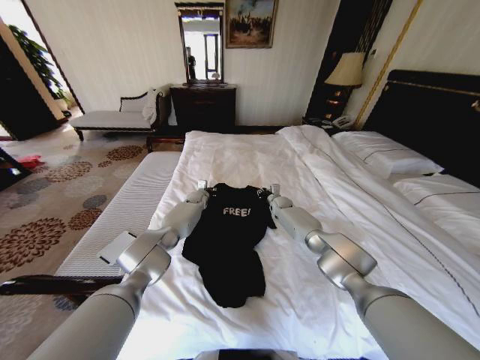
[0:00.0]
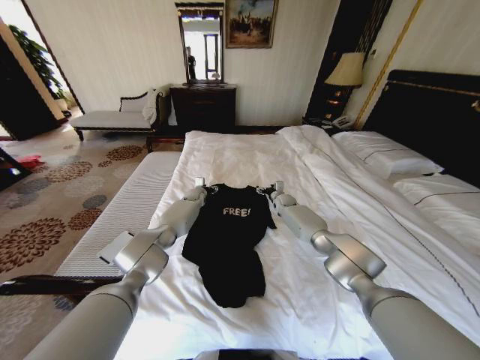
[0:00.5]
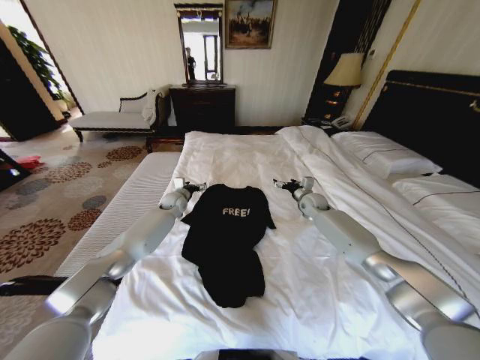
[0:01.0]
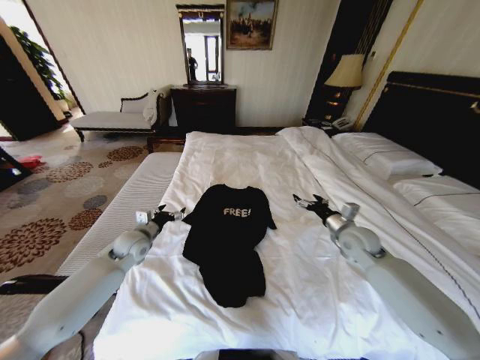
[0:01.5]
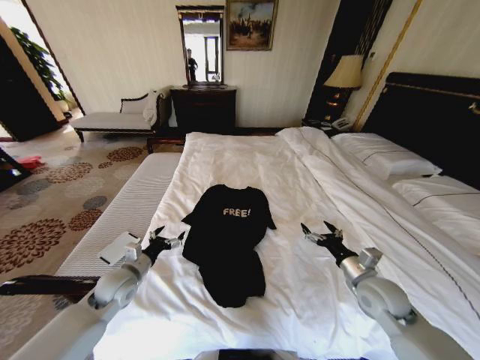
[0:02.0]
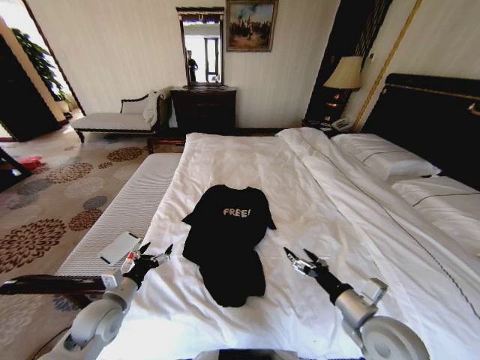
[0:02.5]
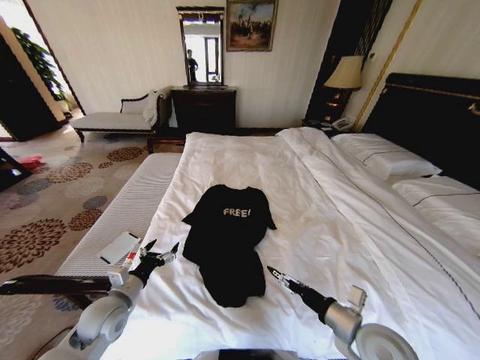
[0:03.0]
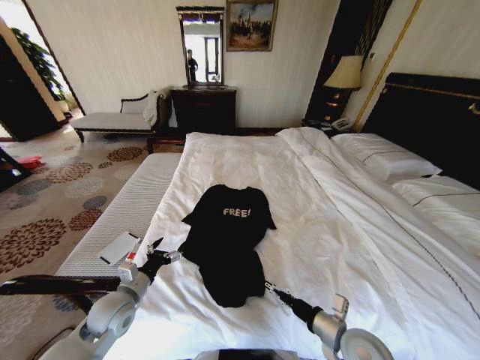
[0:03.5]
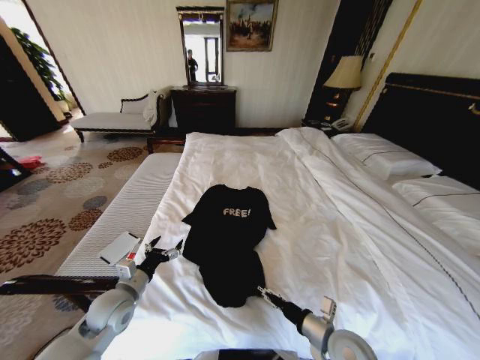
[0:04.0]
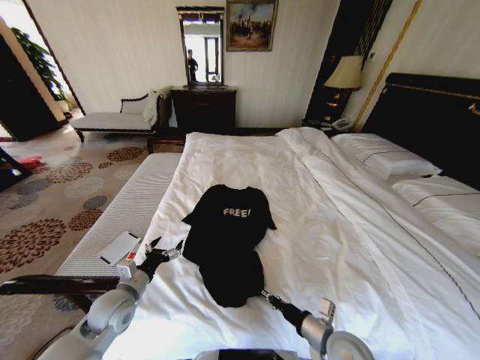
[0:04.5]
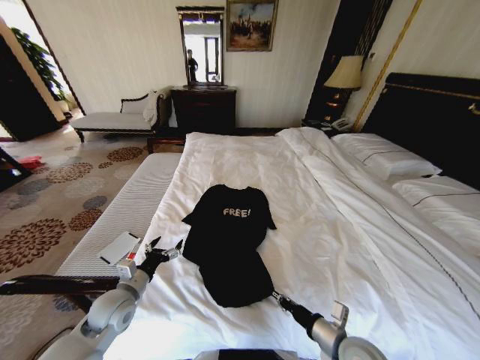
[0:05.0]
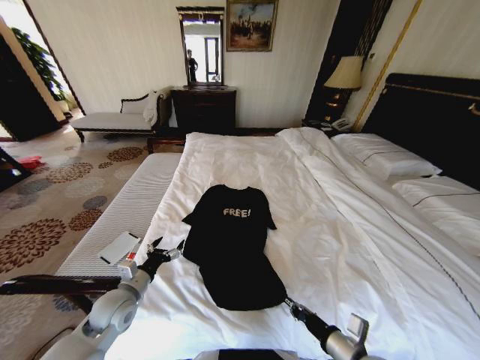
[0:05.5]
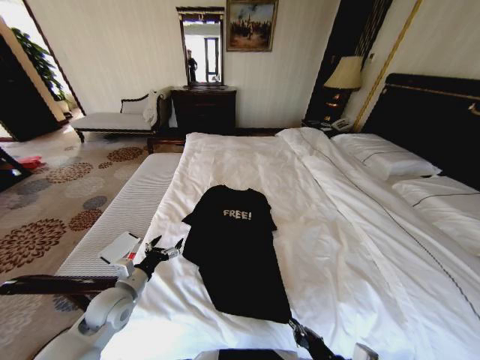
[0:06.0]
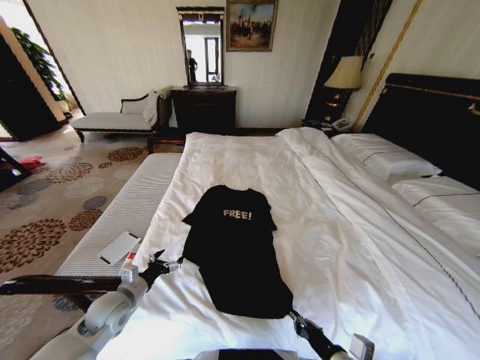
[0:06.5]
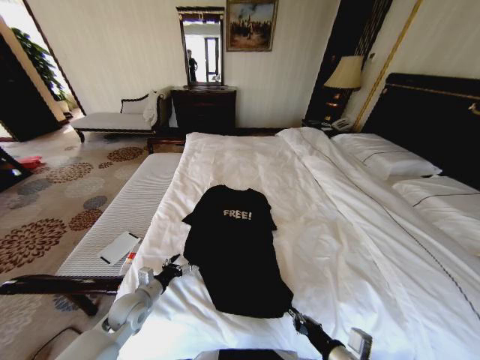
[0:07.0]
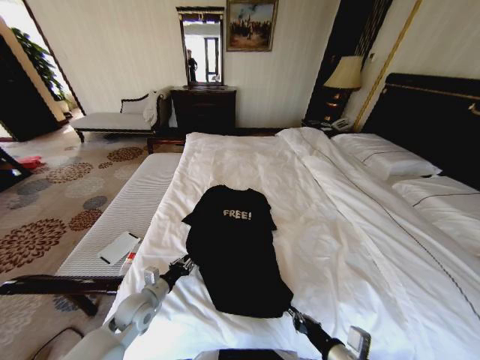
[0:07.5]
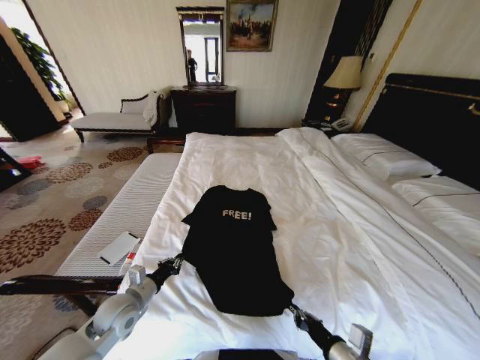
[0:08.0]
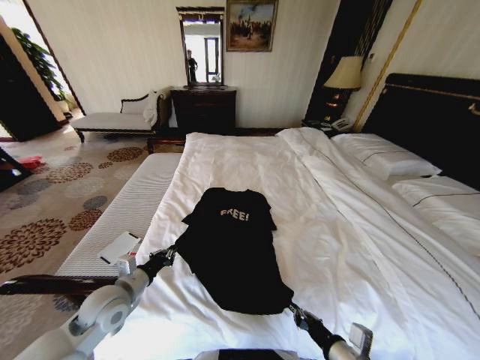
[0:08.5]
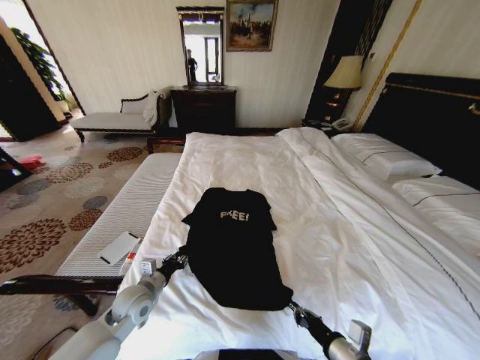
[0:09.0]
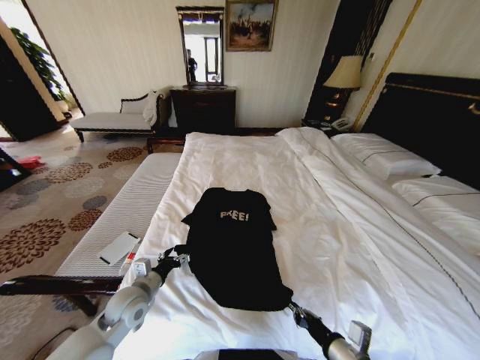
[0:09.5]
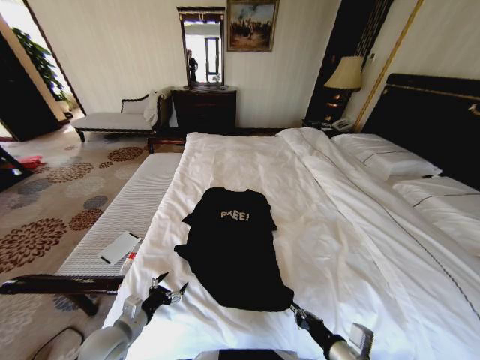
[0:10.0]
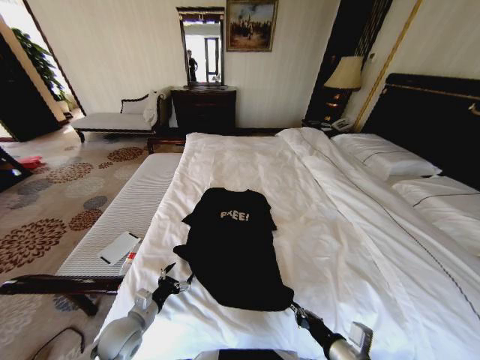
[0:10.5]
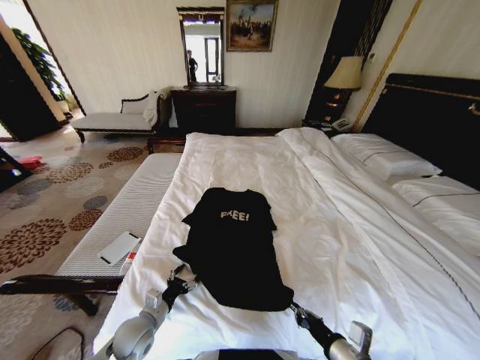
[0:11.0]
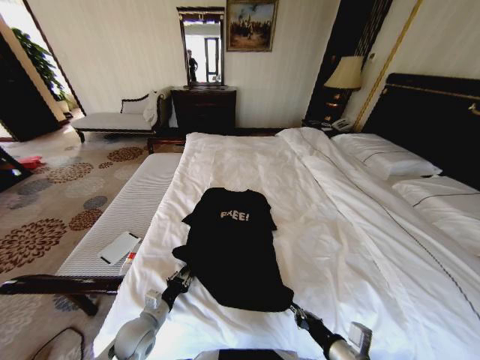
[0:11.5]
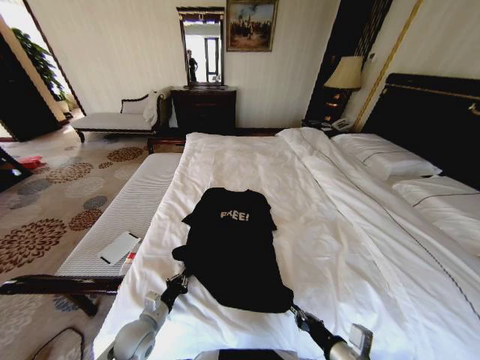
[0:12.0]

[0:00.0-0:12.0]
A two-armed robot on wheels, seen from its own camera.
Task of the whole recording: Fold the clothes on the bed.
0:00.0 to 0:02.0: The right gripper shifts about 40 cm backward, and opens up. Meanwhile the left gripper heads backward and to the left, covering approximately 40 cm, and opens its fingers.
0:02.0 to 0:04.0: The right gripper heads to the left, backward and downward, covering approximately 15 cm; the left gripper is displaced backward by about 5 cm.
0:04.0 to 0:06.0: The right gripper heads backward, covering approximately 10 cm, and closes.
0:06.0 to 0:08.0: The left gripper closes its fingers.
0:08.0 to 0:10.0: The left gripper heads backward, covering about 5 cm, and opens up.
0:10.0 to 0:12.0: The left gripper is displaced downward by approximately 5 cm, and closes.

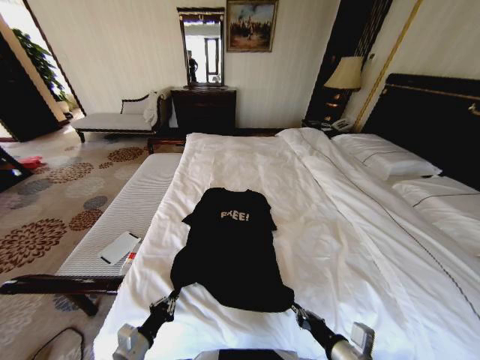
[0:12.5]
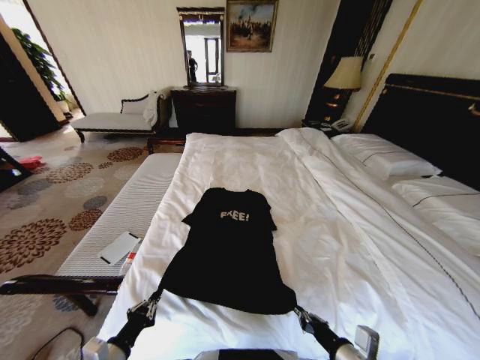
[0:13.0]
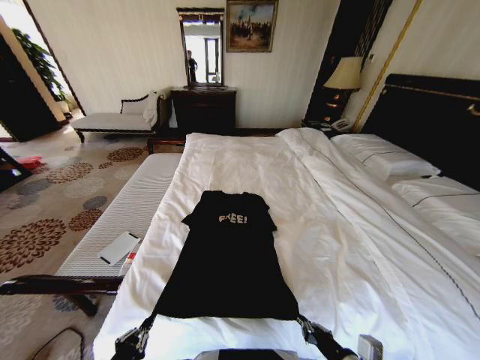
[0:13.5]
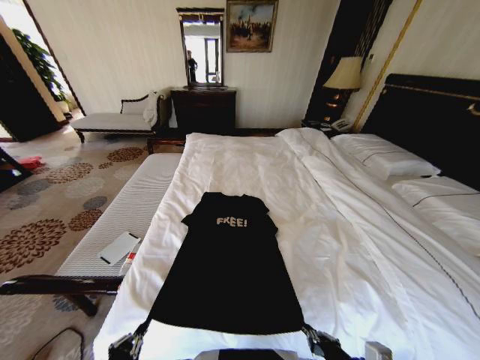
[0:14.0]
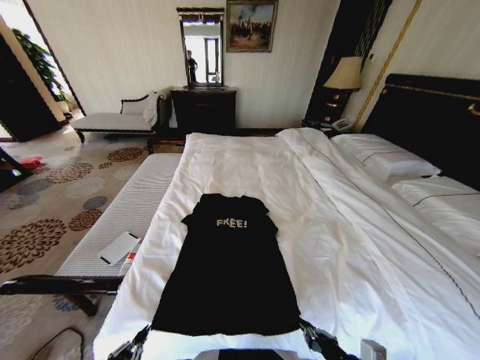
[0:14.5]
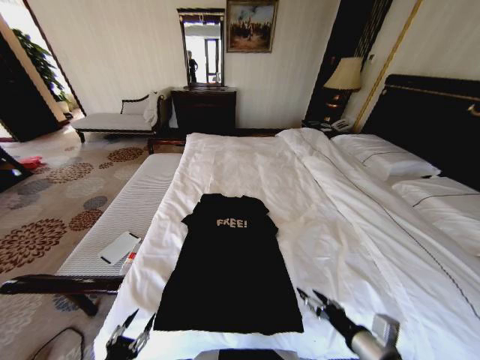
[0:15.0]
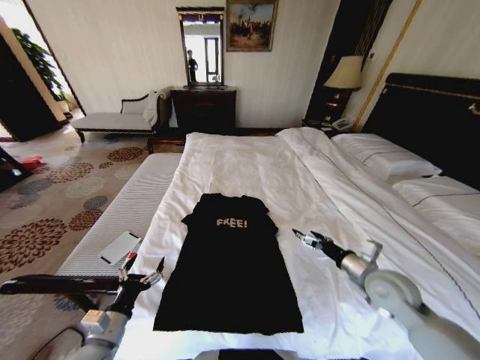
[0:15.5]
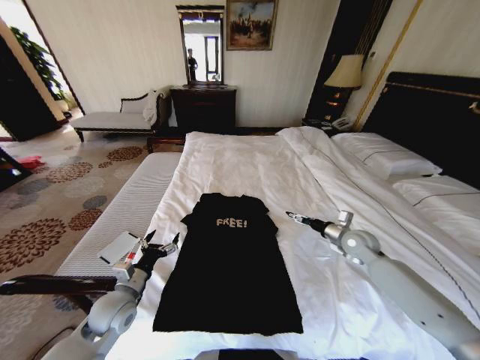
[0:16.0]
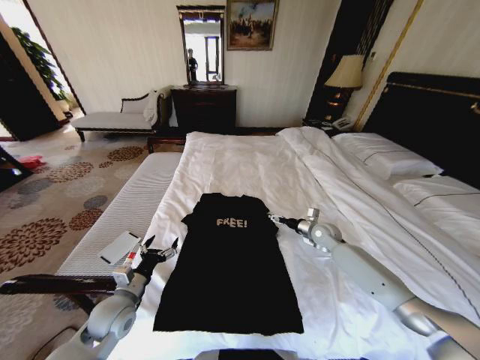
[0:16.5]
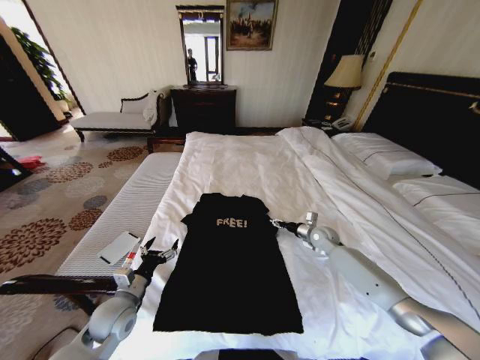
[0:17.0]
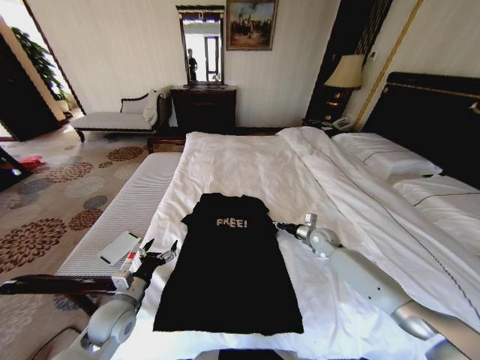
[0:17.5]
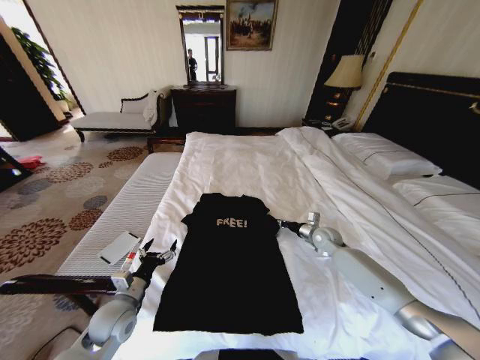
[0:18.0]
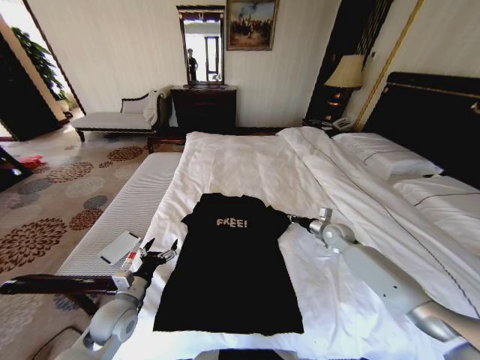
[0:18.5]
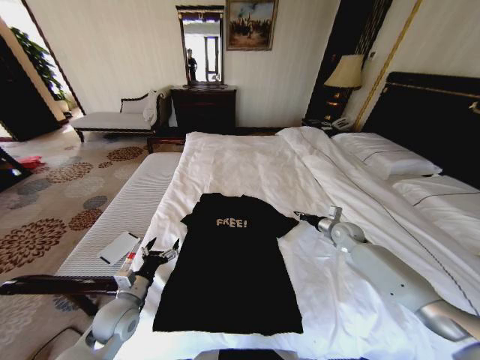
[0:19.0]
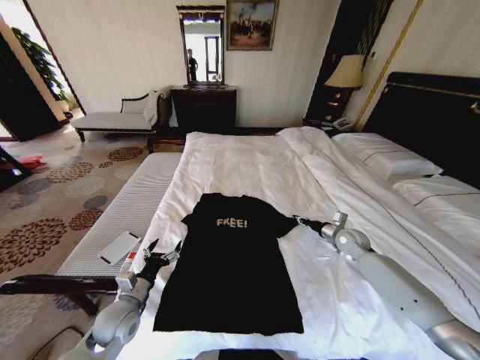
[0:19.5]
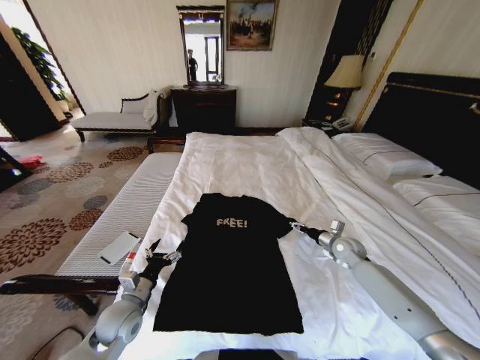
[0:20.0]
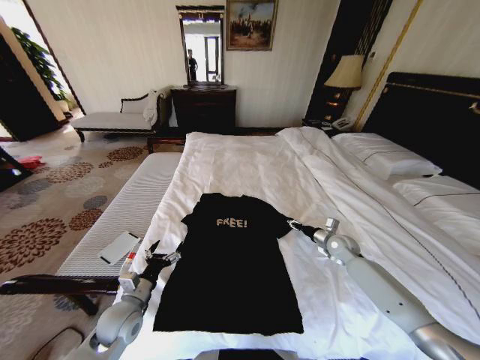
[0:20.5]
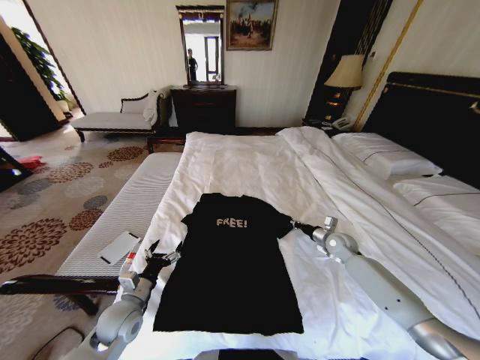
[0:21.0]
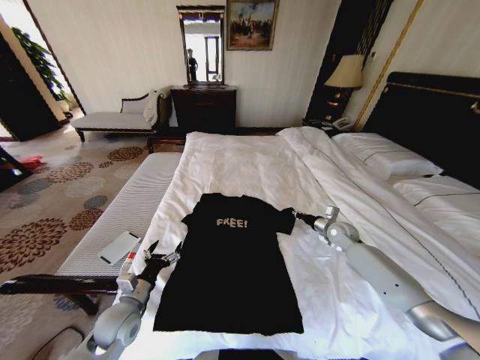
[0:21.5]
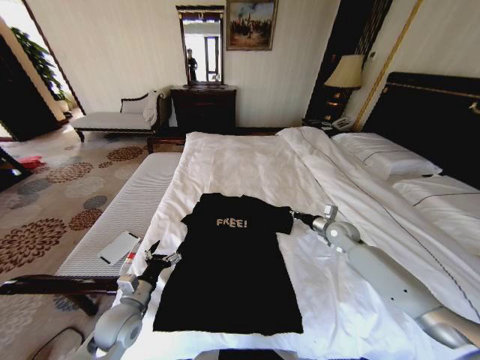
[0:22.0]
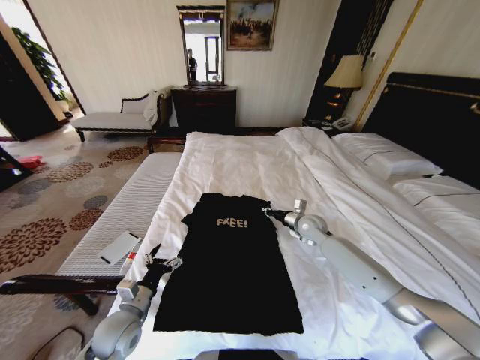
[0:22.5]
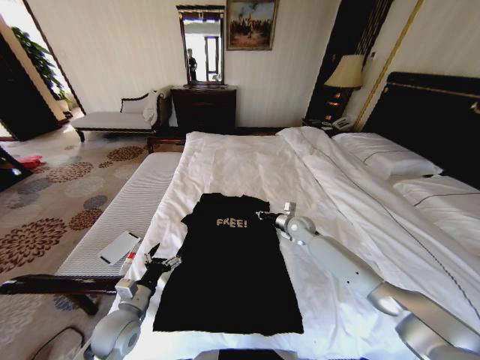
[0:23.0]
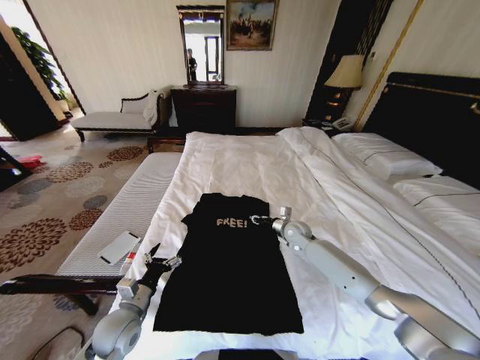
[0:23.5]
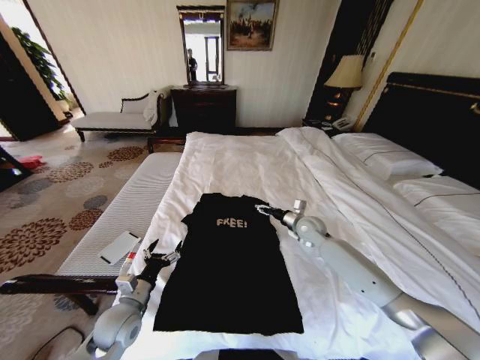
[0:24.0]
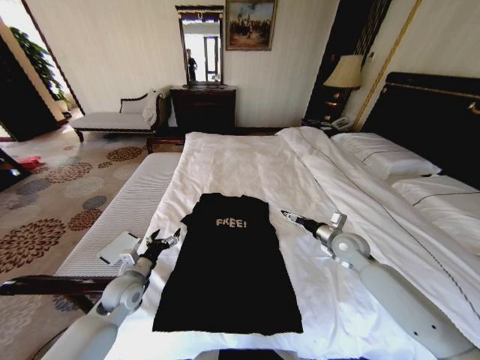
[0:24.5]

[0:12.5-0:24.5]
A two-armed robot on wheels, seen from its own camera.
Task of the whole recording: Fold the clothes on the bed.
0:12.5 to 0:14.5: The left gripper is displaced backward by some 10 cm.
0:14.5 to 0:16.5: The left gripper shifts roughly 25 cm forward, and opens up, while the right gripper travels forward by roughly 40 cm, and opens its fingers.
0:16.5 to 0:18.5: The right gripper closes.
0:18.5 to 0:20.5: The right gripper opens up.
0:20.5 to 0:22.5: The right gripper heads to the left and upward, covering about 15 cm, and closes.
0:22.5 to 0:24.5: The right gripper is displaced backward and to the right by roughly 10 cm, and opens up, while the left gripper goes approximately 10 cm forward.

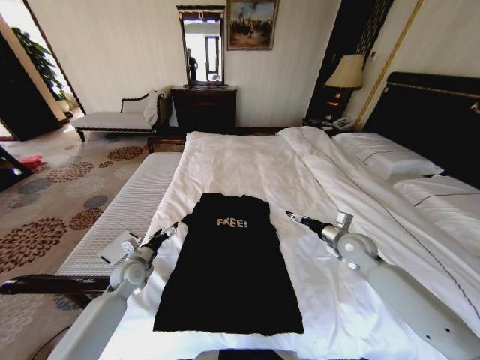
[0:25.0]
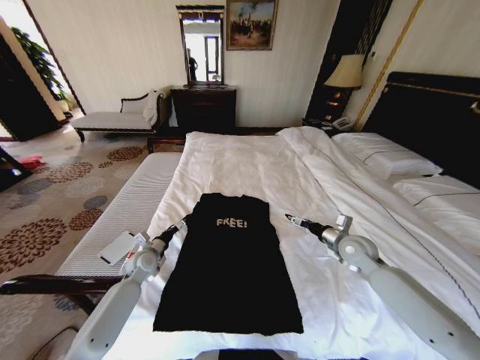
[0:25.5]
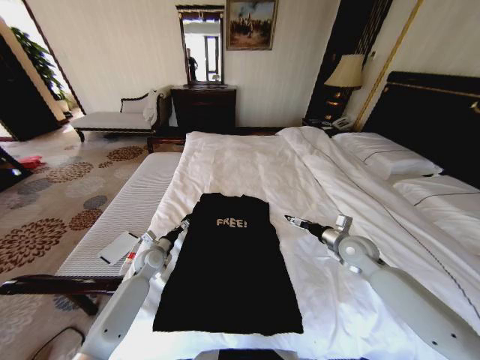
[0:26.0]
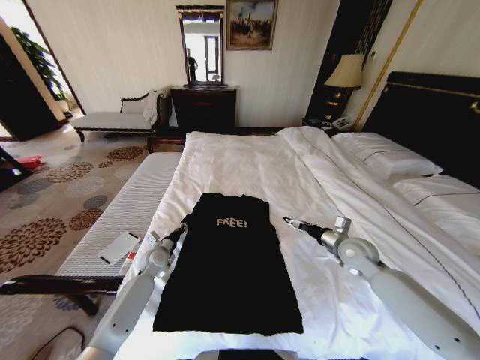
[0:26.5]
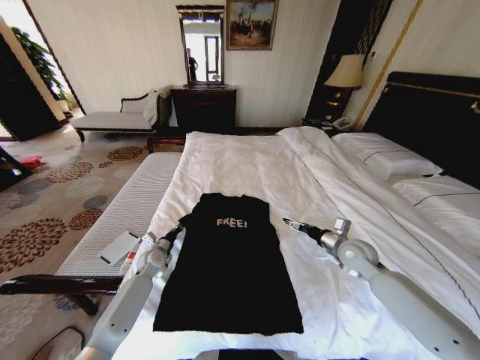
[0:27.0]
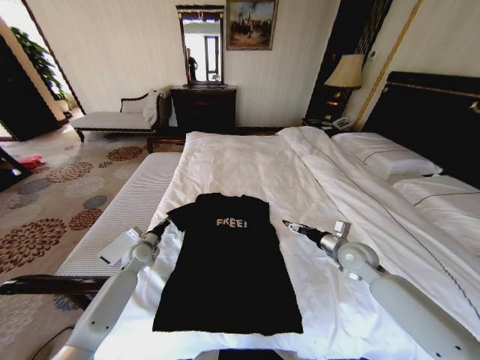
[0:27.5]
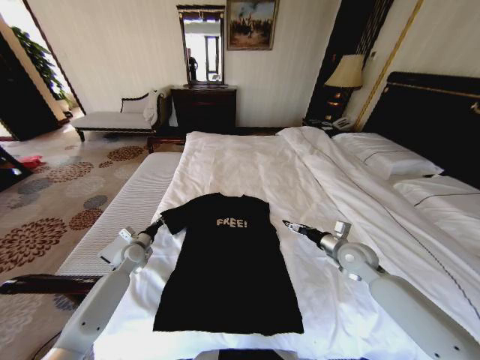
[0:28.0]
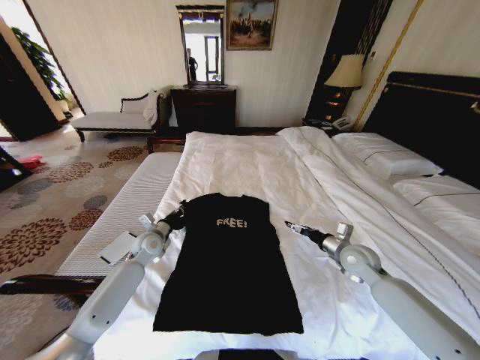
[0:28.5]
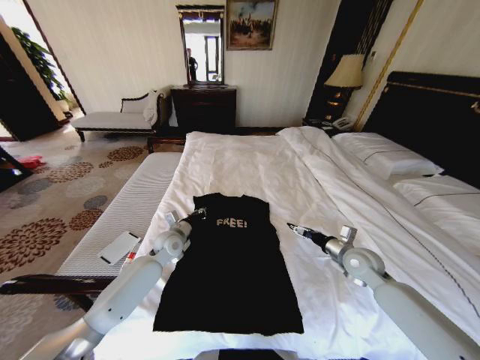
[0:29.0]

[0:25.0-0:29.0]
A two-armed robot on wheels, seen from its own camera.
Task of the whole recording: Fold the clothes on the bed.
0:25.0 to 0:27.0: The left gripper is displaced forward by about 5 cm, and closes its fingers.
0:27.0 to 0:29.0: The left gripper goes approximately 15 cm upward and to the right.
